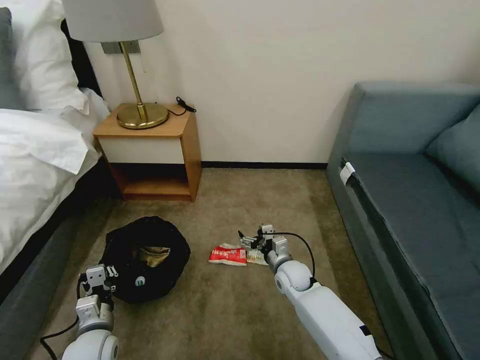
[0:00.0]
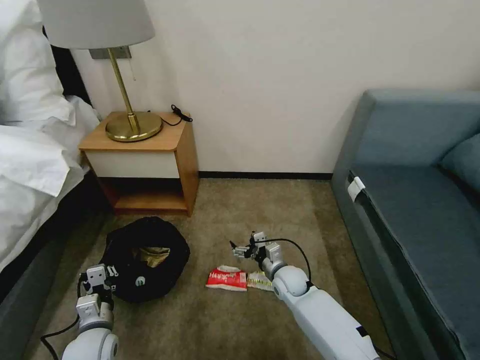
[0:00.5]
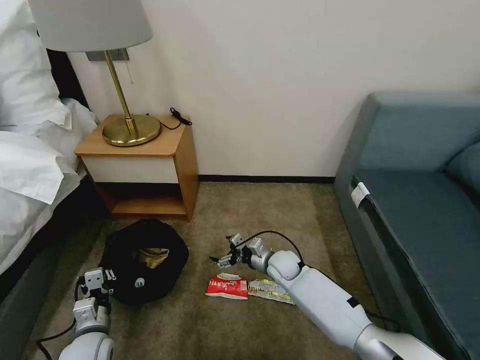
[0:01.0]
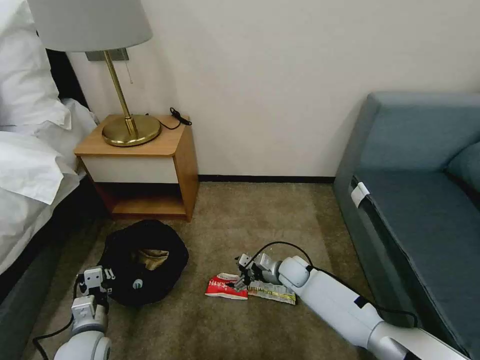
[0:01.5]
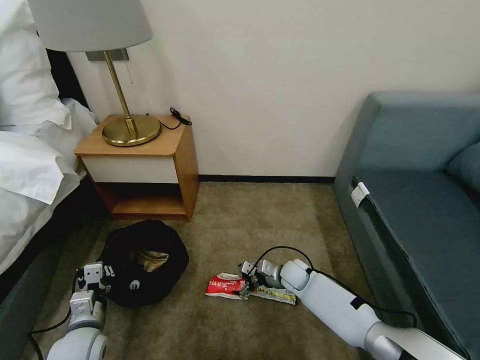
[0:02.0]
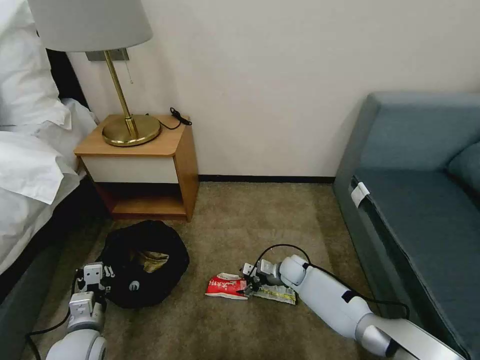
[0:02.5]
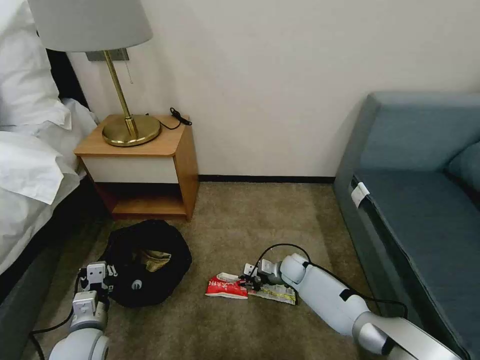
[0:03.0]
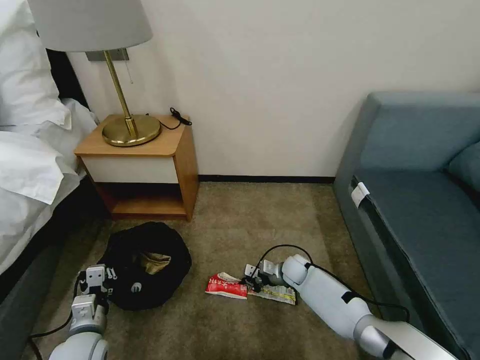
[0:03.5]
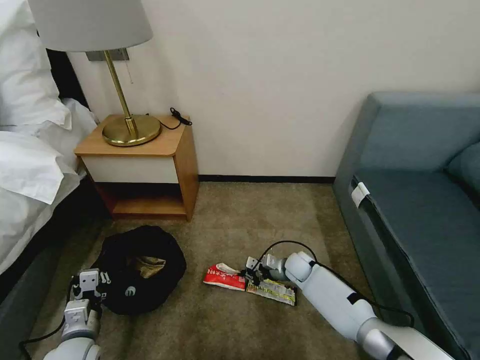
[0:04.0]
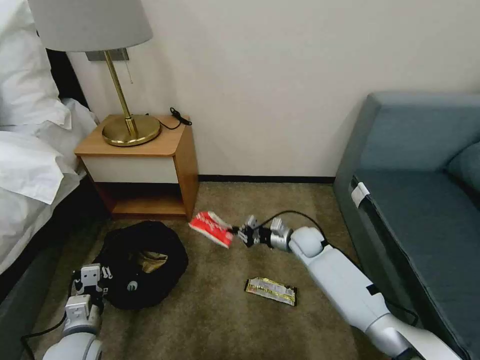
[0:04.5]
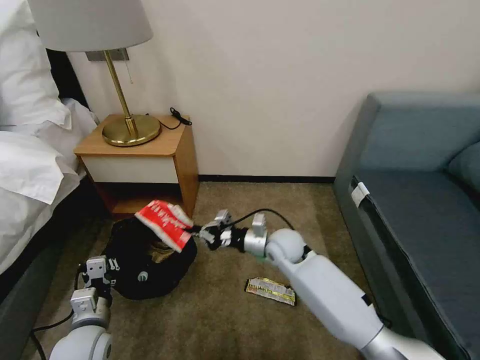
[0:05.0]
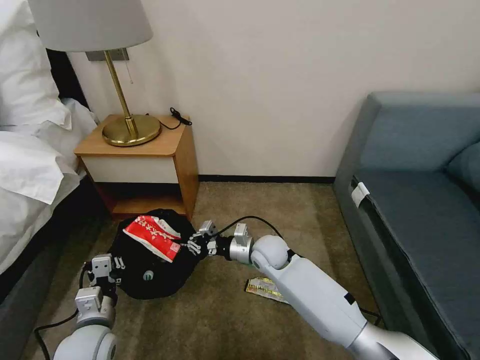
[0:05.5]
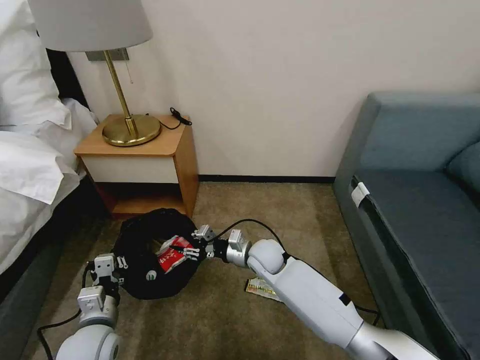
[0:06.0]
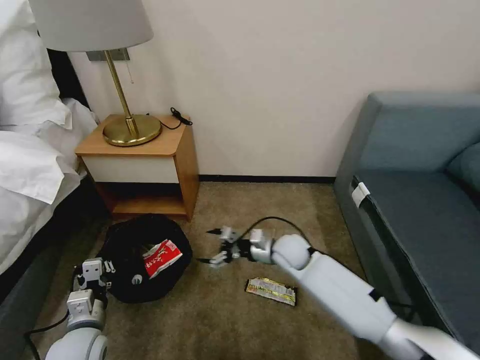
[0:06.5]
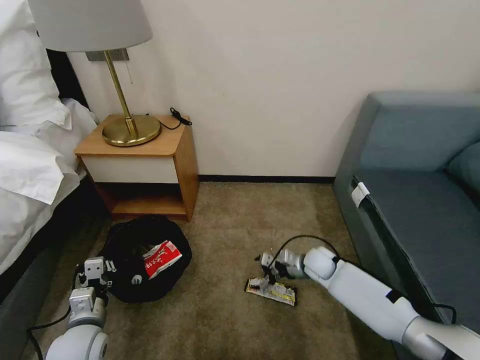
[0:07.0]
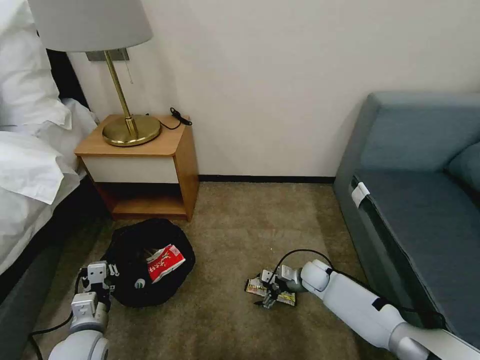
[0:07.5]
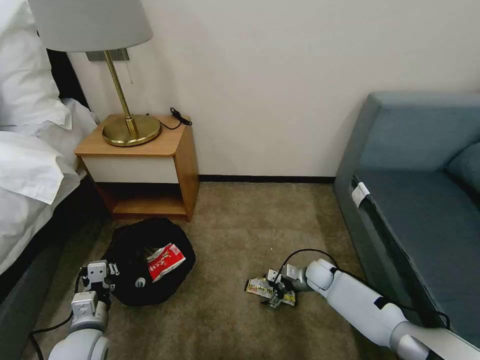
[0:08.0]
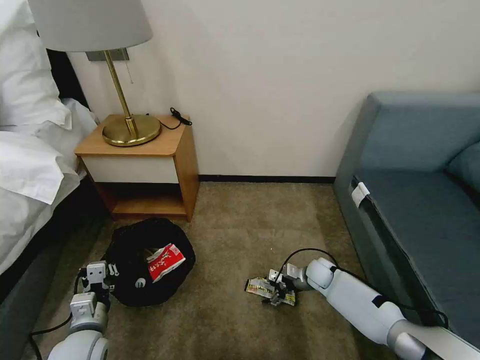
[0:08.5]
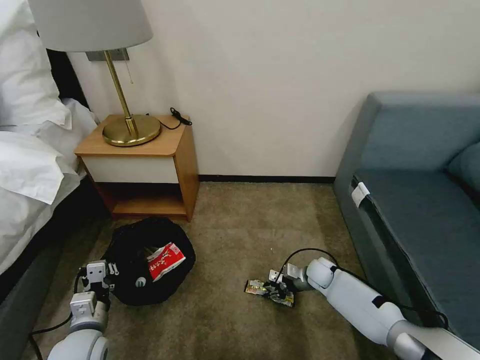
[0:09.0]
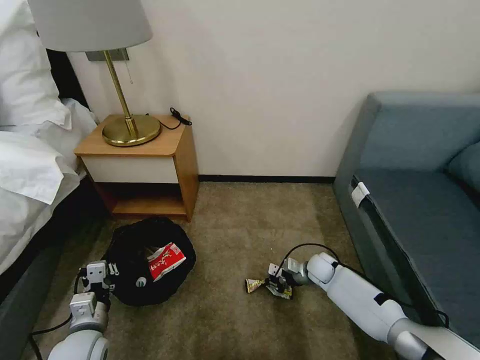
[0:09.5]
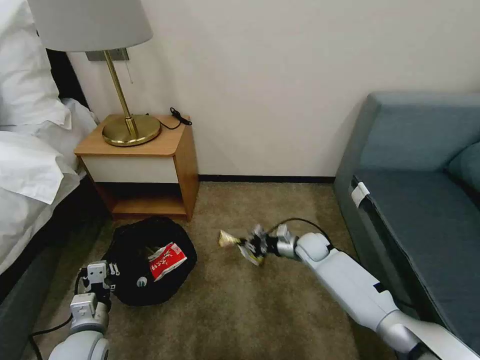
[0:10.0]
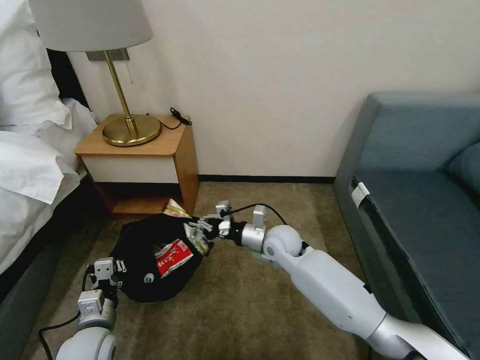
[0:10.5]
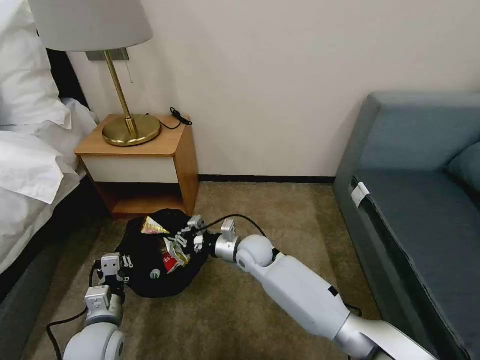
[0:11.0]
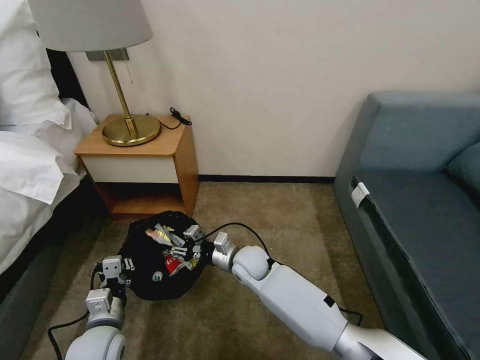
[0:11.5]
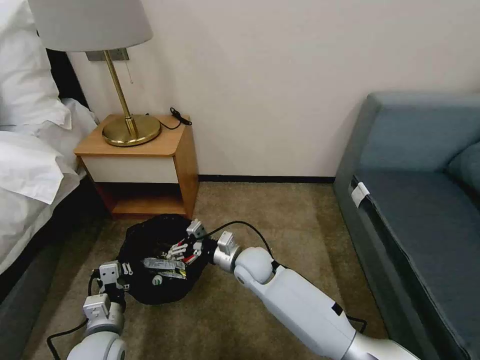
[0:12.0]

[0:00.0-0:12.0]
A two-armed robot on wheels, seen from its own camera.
Task of the whole recording: Pick up the trash bin, then pick up the garbage on the floor and place it into the trash bin.
0:00.0 to 0:02.0: The right gripper shifts by about 5 cm.
0:02.0 to 0:04.0: The right gripper closes its fingers.
0:04.0 to 0:06.0: The right gripper travels upward and to the left by roughly 20 cm, and opens its fingers, while the left gripper shifts by about 5 cm.
0:06.0 to 0:08.0: The right gripper goes some 25 cm to the right and downward, and opens its fingers.
0:08.0 to 0:10.0: The right gripper travels upward by some 10 cm, and closes.
0:10.0 to 0:12.0: The right gripper heads to the left and backward, covering approximately 20 cm, and opens its fingers.

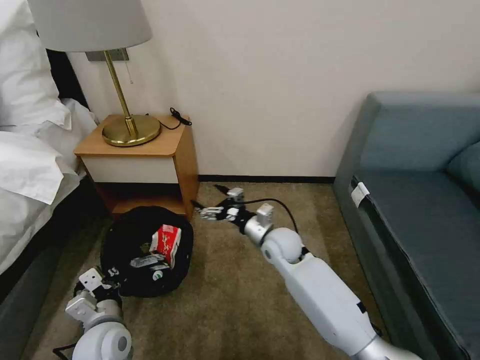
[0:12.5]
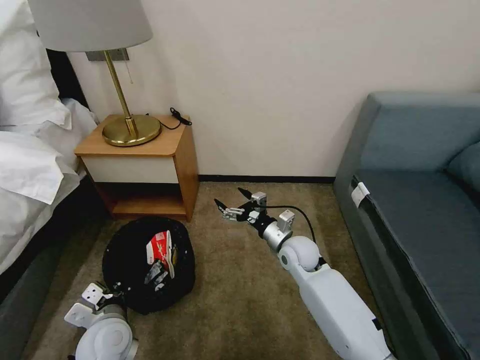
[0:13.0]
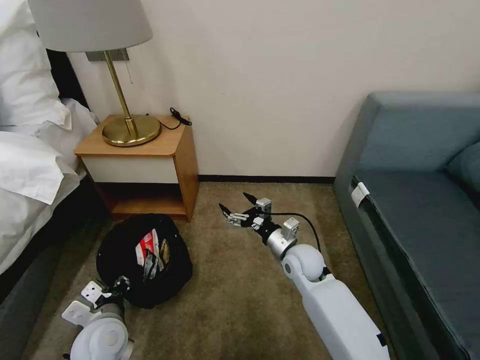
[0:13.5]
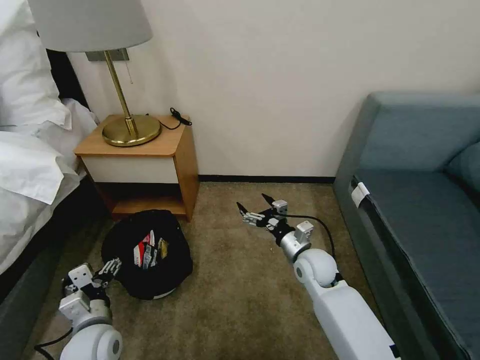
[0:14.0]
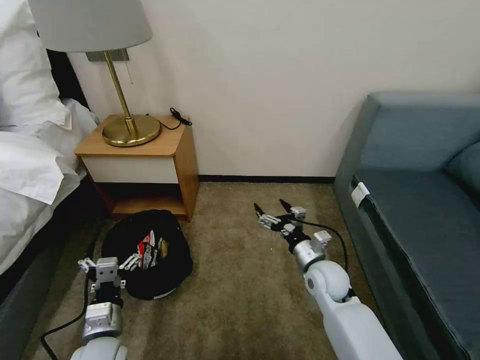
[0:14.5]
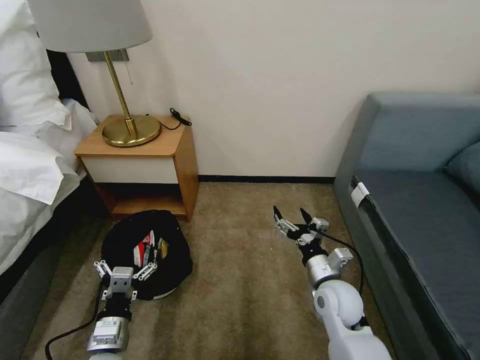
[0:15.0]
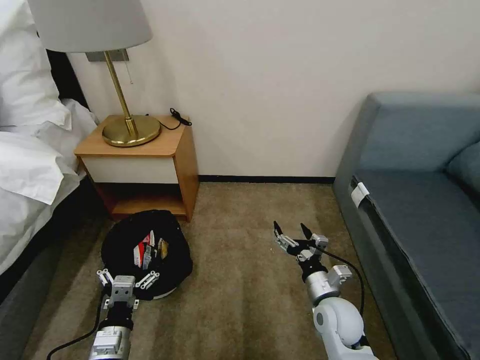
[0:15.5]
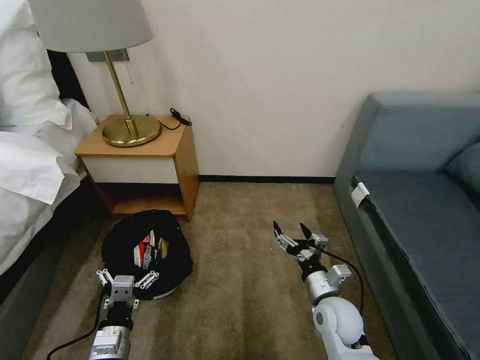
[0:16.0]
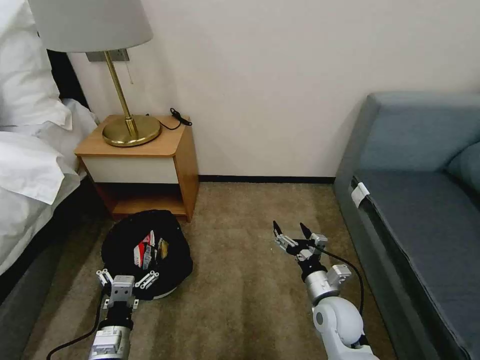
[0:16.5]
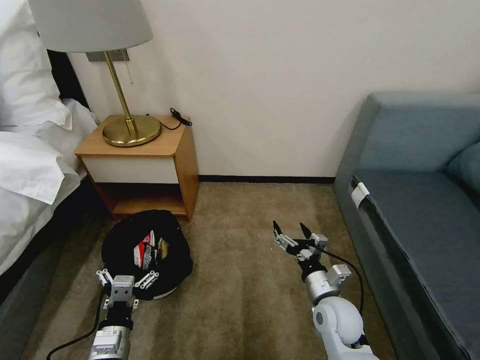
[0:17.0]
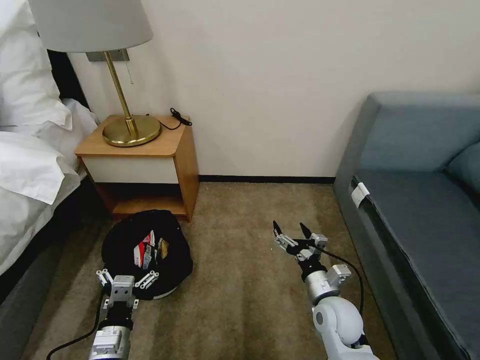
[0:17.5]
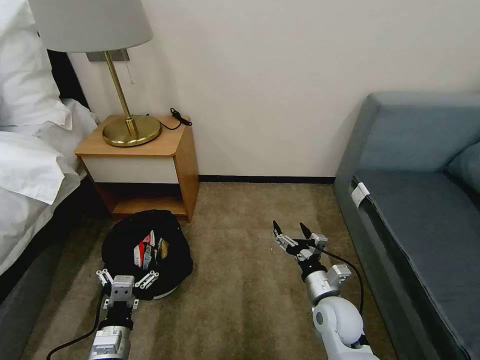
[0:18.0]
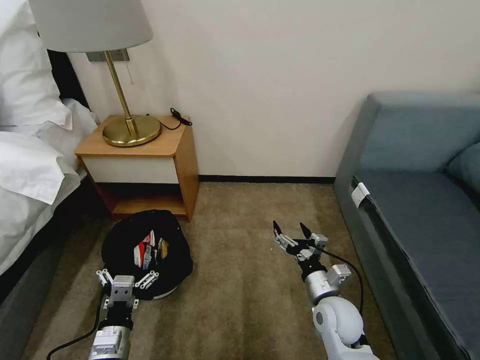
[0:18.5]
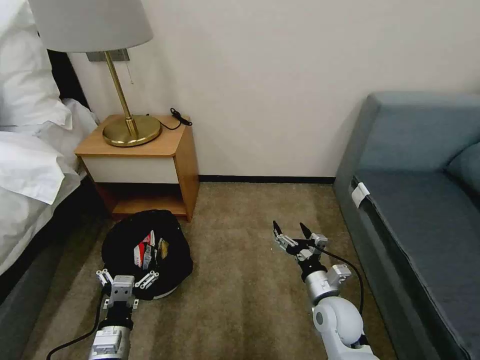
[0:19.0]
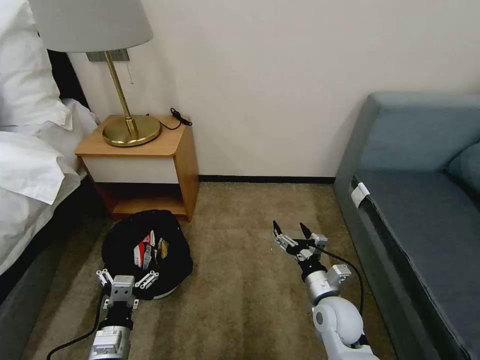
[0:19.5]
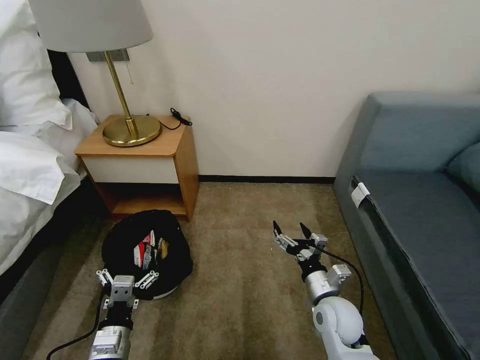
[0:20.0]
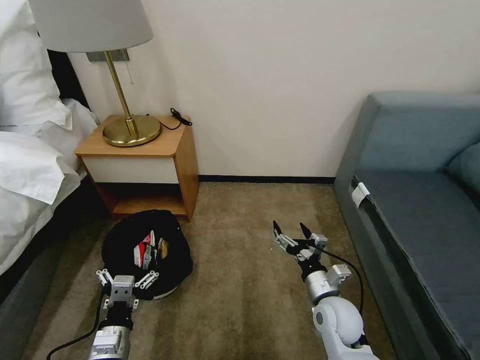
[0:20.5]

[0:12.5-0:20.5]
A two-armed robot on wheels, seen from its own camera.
Task of the whole recording: Pick up the trash bin, then pick up the garbage on the floor and place it into the trash bin.
0:12.5 to 0:14.5: The left gripper opens up. Meanwhile the right gripper goes roughly 15 cm to the right and backward.
0:14.5 to 0:16.5: The right gripper shifts roughly 10 cm backward.
0:16.5 to 0:20.5: The two grippers keep their place.
